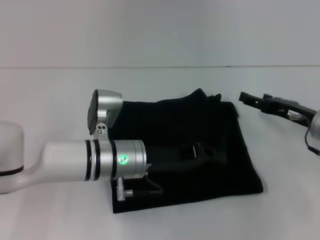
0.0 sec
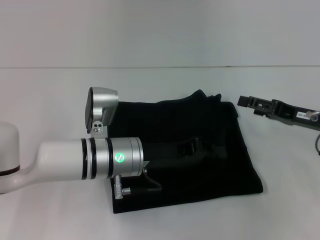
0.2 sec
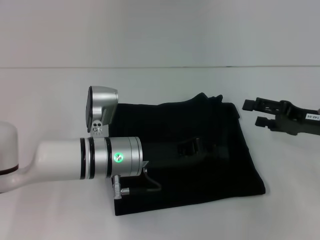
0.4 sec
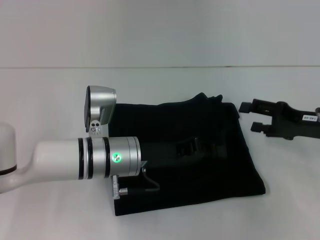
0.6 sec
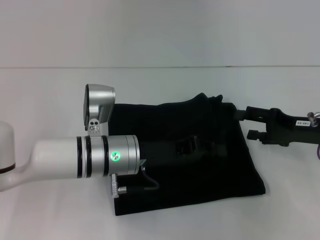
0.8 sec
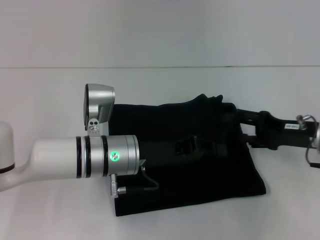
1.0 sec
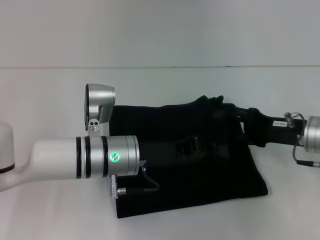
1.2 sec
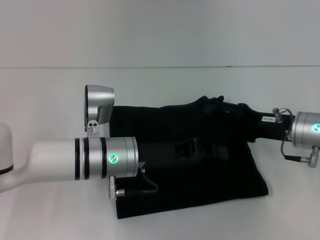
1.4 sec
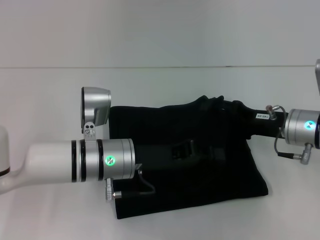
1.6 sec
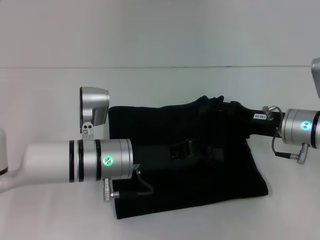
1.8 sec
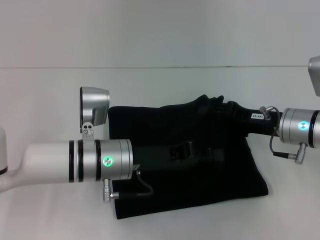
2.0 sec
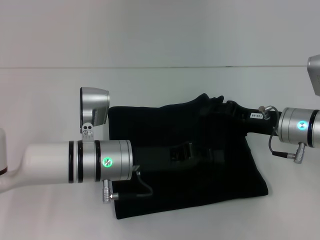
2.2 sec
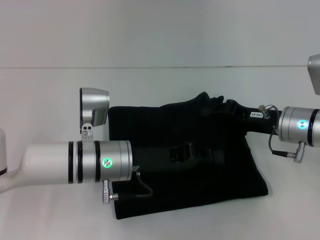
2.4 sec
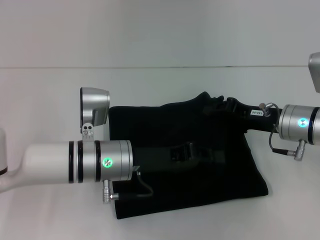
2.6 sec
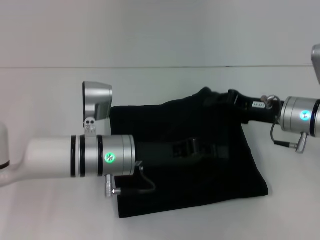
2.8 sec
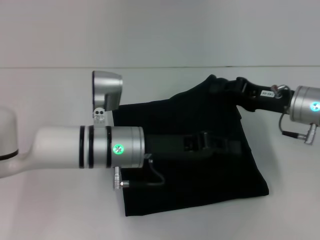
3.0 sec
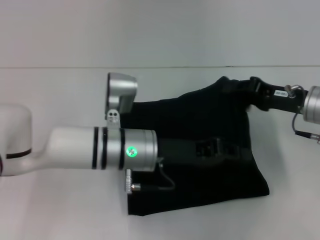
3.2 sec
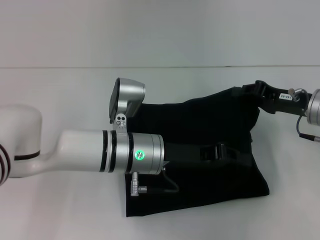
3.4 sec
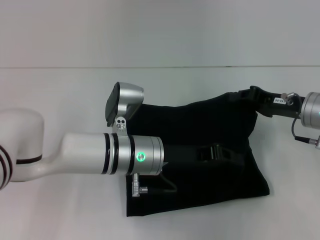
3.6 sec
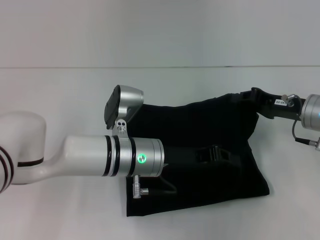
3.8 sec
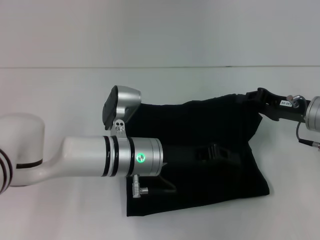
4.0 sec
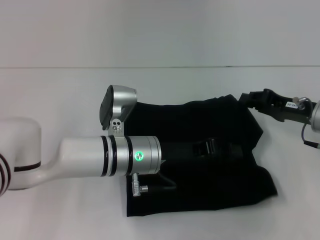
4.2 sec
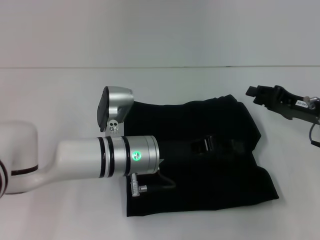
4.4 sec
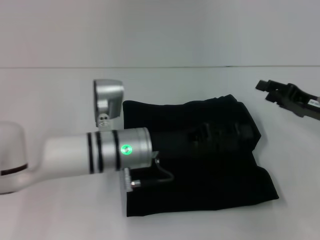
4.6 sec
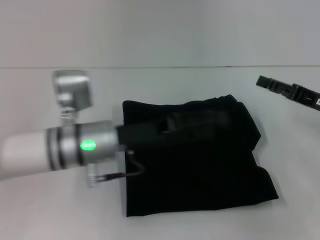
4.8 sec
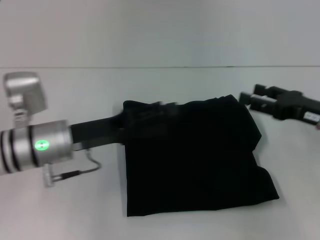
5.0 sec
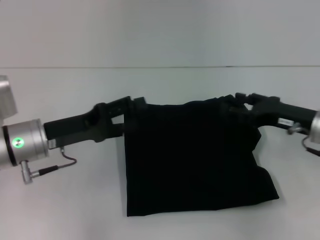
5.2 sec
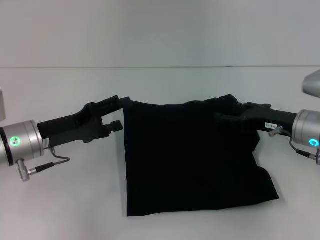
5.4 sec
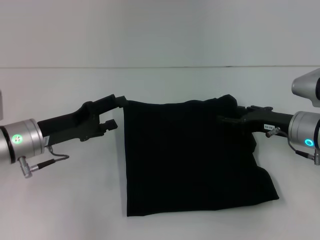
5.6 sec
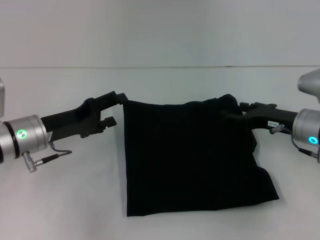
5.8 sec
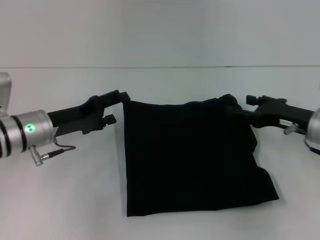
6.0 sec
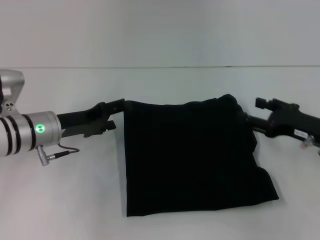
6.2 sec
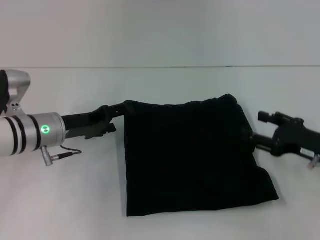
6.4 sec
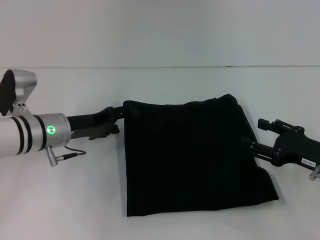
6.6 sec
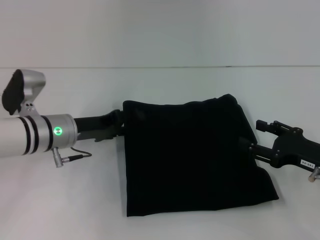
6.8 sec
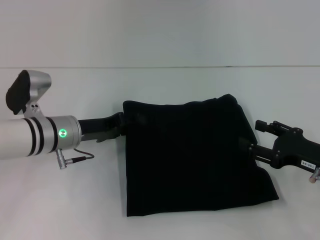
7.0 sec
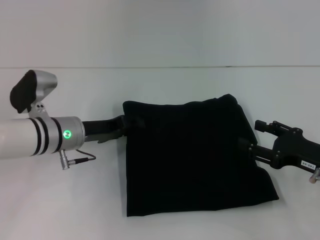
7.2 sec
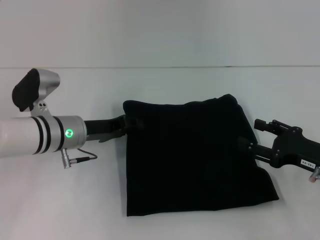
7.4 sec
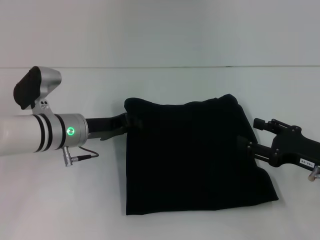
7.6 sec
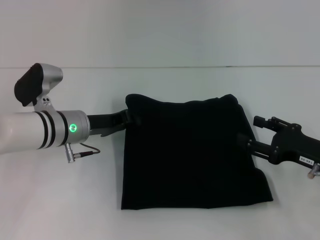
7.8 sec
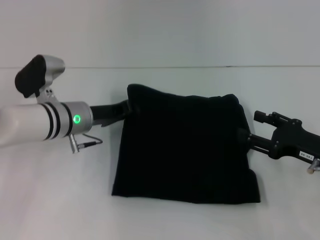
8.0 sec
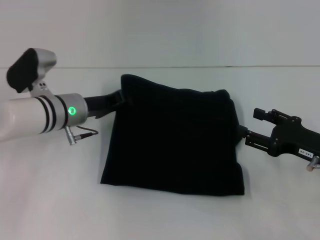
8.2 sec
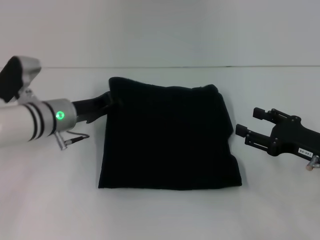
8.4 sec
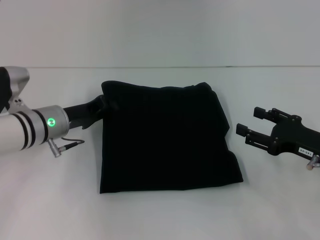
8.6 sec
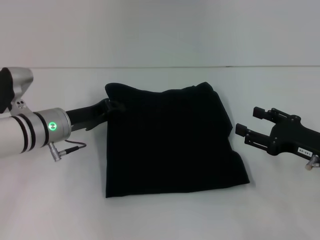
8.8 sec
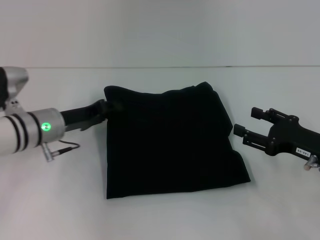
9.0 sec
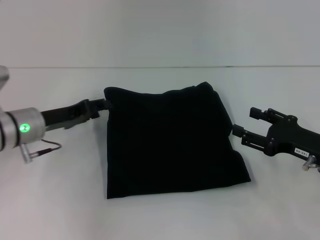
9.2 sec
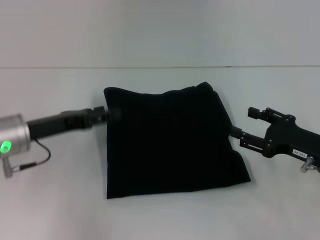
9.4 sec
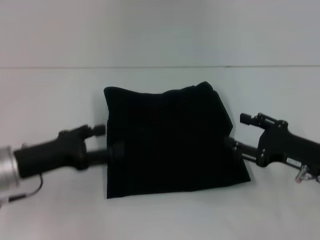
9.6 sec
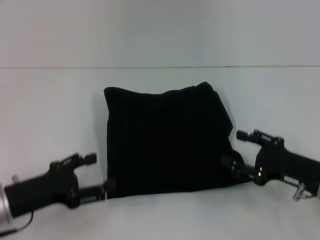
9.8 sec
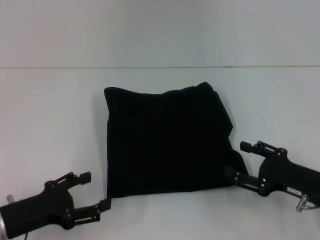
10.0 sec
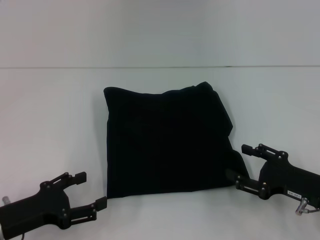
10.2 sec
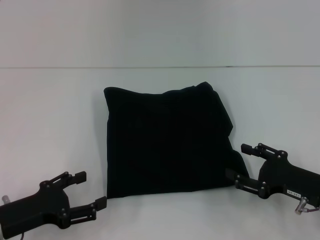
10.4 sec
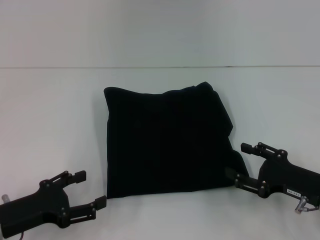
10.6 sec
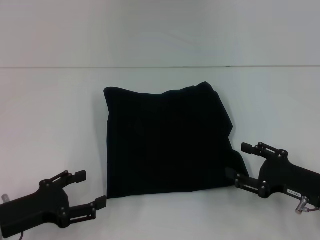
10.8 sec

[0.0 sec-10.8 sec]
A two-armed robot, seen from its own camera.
Step, 0.0 sec to 4.6 sec: Fold the clothes with your left hand.
1.6 sec to 3.0 sec: The right gripper closes up.
3.0 sec to 4.6 sec: The right gripper shifts some 5 cm to the right.
4.6 sec to 6.2 sec: The left gripper is displaced to the left by roughly 15 cm, and opens up; the right gripper opens up.
6.2 sec to 7.8 sec: The left gripper closes its fingers.
7.8 sec to 9.2 sec: The left gripper moves to the left, about 5 cm.
9.2 sec to 10.8 sec: The left gripper is displaced backward by approximately 15 cm, and opens. The right gripper shifts by roughly 5 cm.

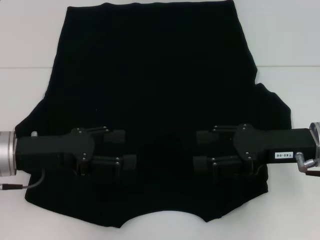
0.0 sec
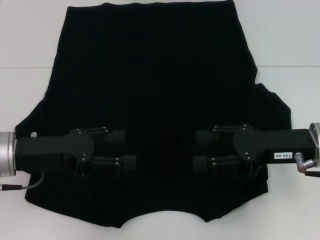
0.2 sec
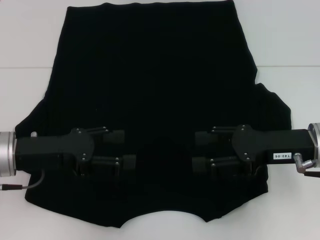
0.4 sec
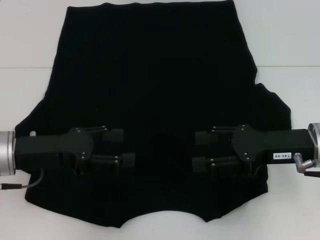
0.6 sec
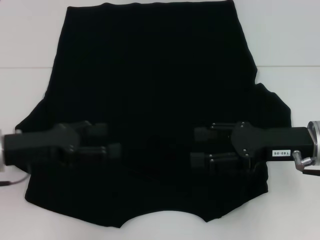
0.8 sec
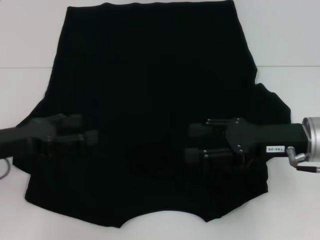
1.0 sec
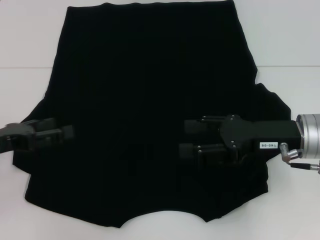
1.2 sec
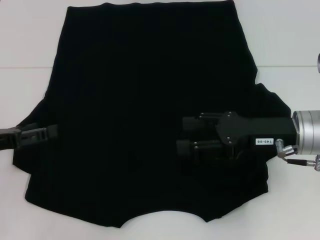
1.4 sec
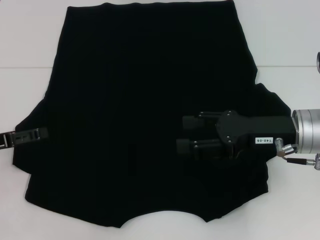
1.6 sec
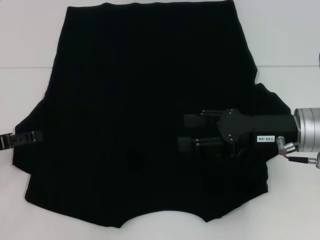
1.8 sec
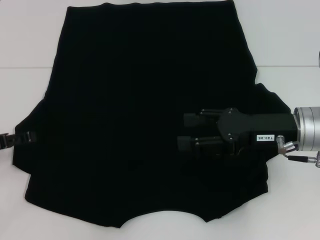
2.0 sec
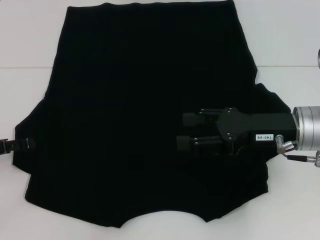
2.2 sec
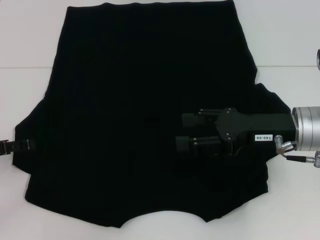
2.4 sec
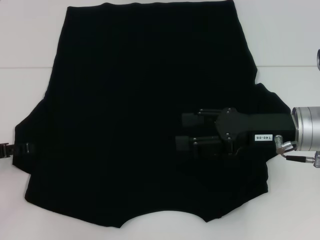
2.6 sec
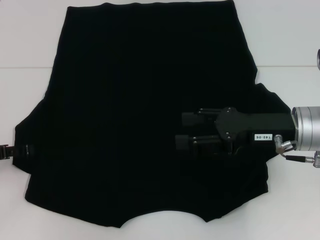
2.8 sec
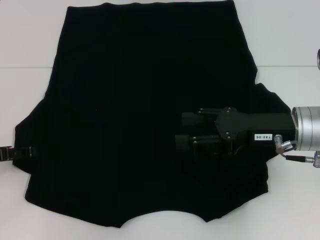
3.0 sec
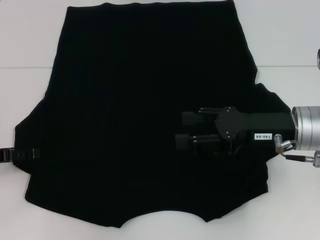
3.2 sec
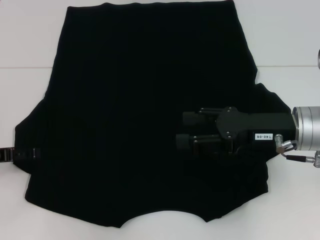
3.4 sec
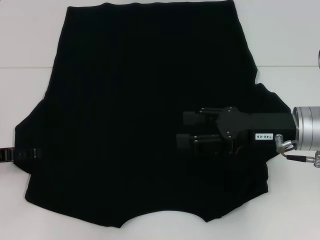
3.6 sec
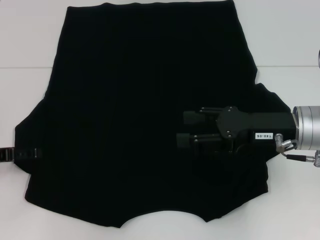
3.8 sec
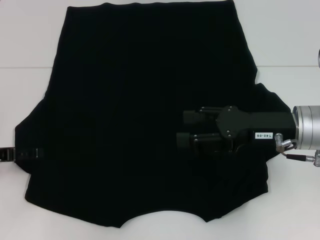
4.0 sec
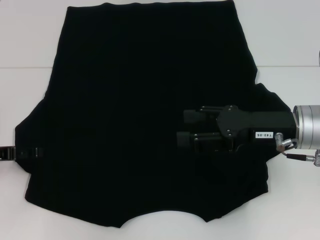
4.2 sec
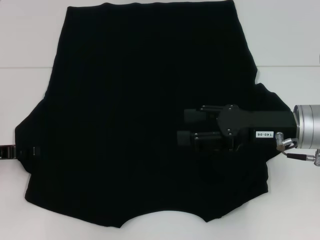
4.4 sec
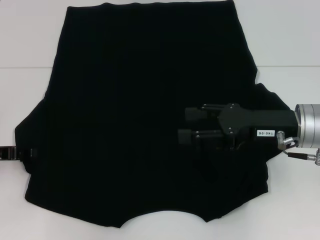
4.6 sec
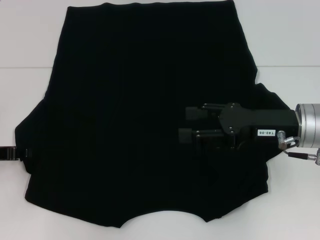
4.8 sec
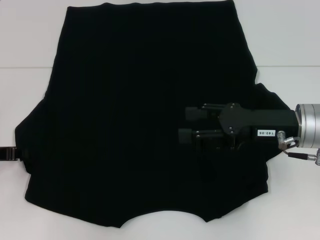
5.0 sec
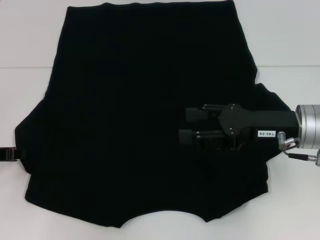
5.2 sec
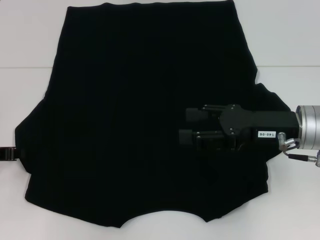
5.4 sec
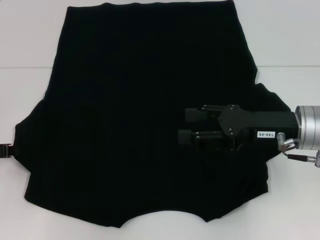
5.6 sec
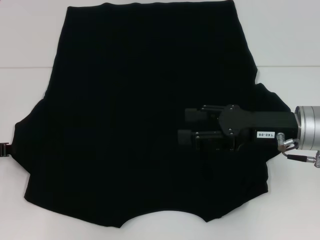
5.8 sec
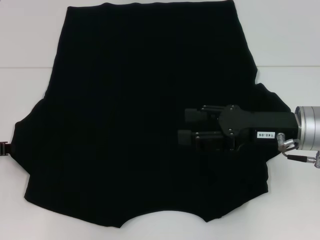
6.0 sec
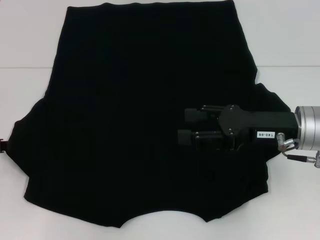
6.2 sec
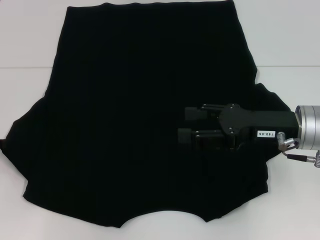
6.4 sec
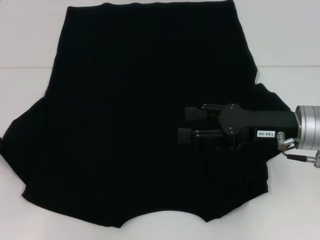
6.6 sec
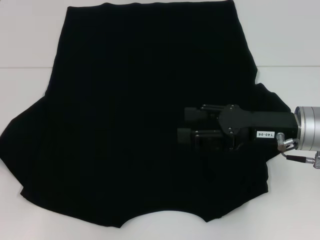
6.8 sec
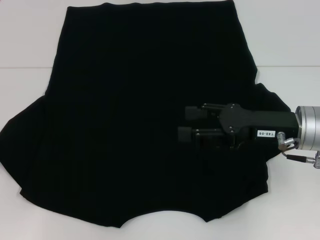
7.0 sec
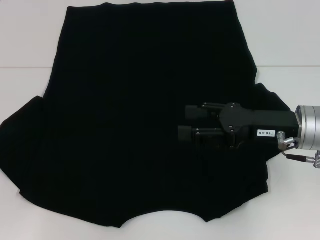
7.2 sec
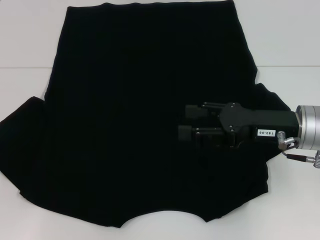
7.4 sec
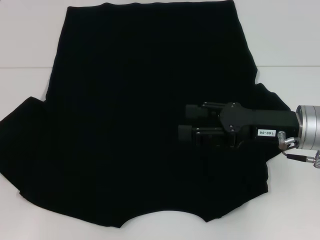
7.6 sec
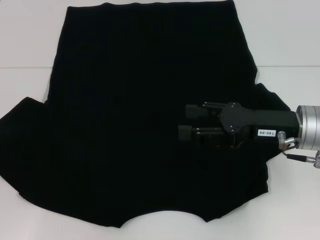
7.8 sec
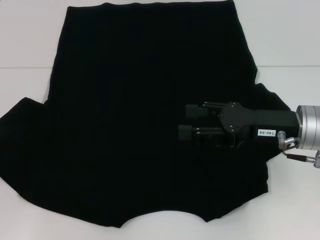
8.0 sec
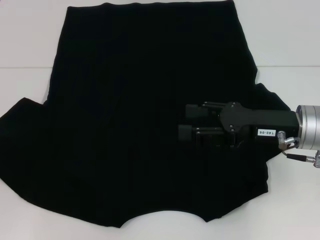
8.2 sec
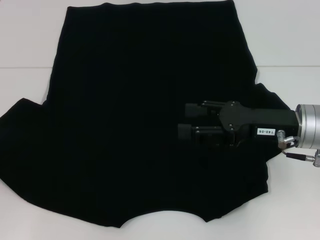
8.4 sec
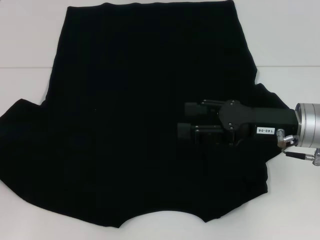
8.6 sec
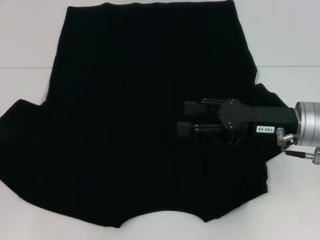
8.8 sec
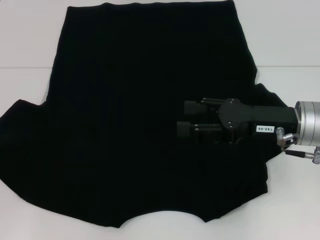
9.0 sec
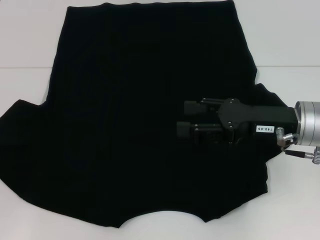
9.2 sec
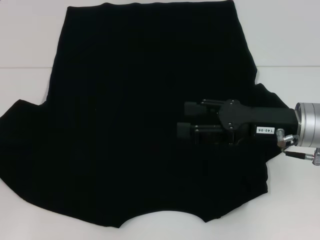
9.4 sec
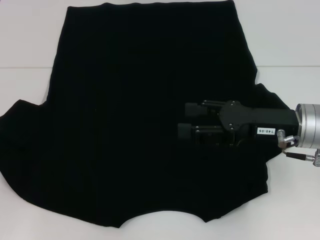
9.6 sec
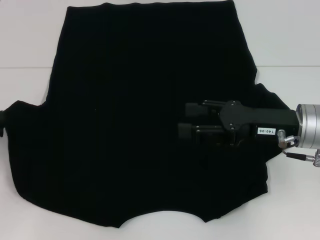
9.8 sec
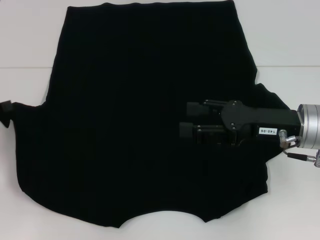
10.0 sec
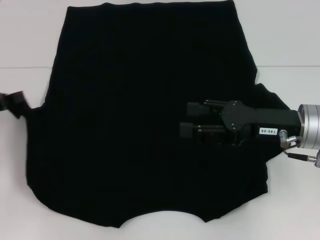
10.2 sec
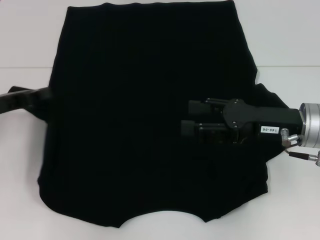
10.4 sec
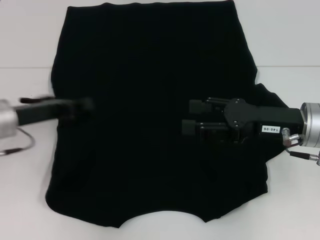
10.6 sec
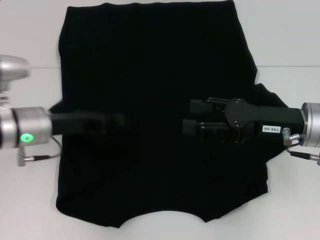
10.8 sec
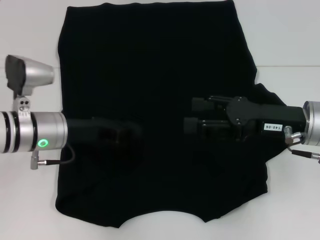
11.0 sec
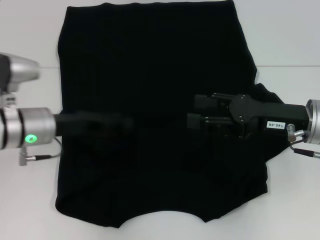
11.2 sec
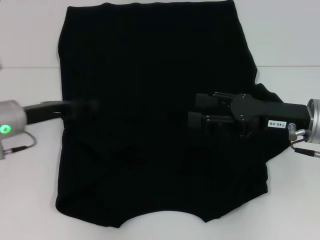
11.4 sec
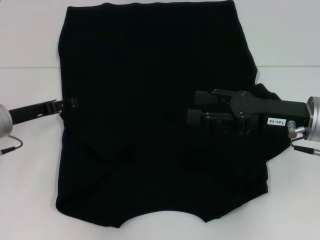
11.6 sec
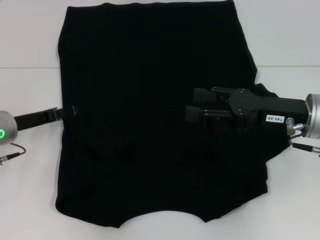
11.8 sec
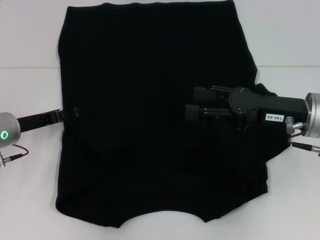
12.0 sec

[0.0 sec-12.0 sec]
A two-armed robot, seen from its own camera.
Step, 0.0 sec to 11.6 sec: Fold the bottom left sleeve with your left hand.
0.0 sec to 1.6 sec: The left gripper goes about 10 cm to the left.
1.6 sec to 3.0 sec: The grippers stay close to where they were, moving slightly.
3.0 sec to 4.4 sec: The two grippers keep their place.
6.0 sec to 9.0 sec: The grippers make only small movements.
9.0 sec to 10.4 sec: The left gripper heads to the right, covering about 10 cm.
10.4 sec to 12.0 sec: The left gripper travels downward by some 5 cm, and opens.
